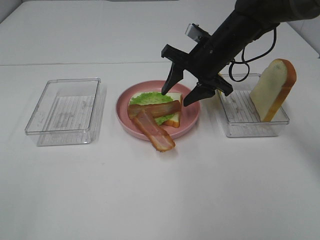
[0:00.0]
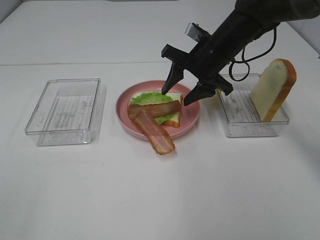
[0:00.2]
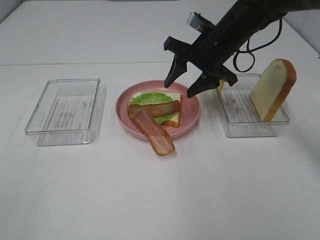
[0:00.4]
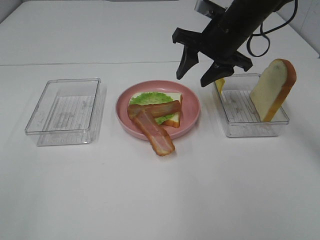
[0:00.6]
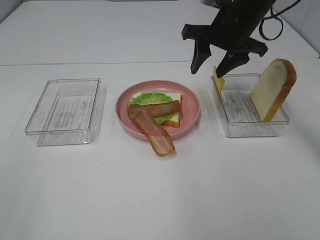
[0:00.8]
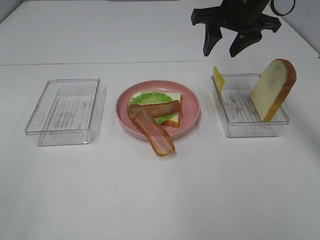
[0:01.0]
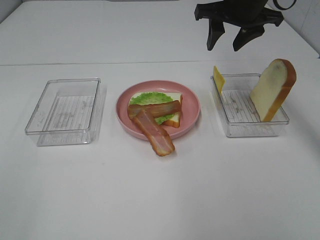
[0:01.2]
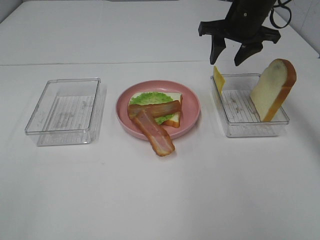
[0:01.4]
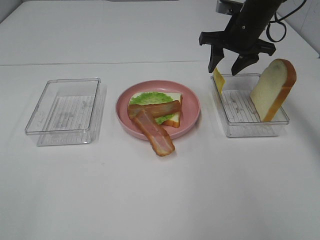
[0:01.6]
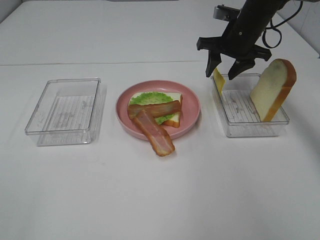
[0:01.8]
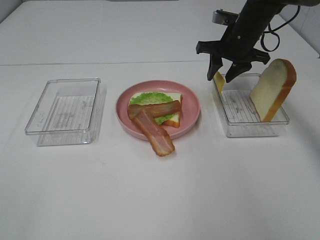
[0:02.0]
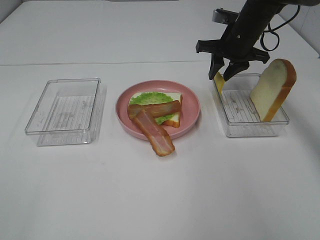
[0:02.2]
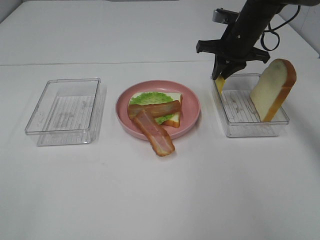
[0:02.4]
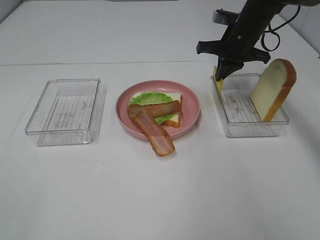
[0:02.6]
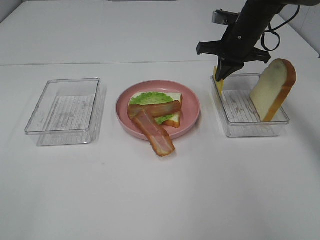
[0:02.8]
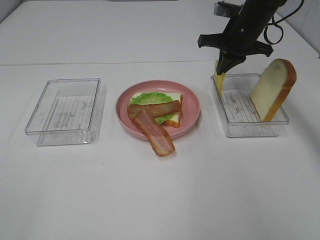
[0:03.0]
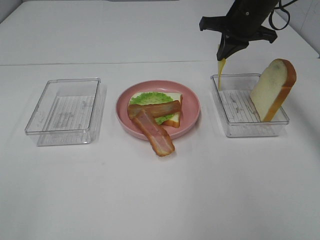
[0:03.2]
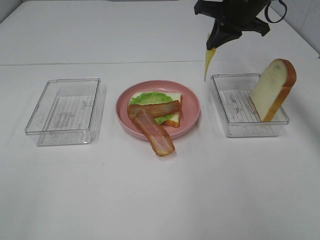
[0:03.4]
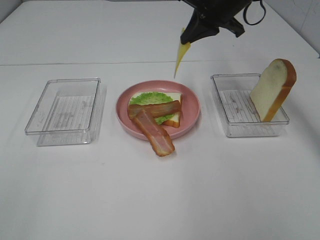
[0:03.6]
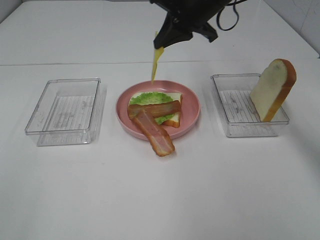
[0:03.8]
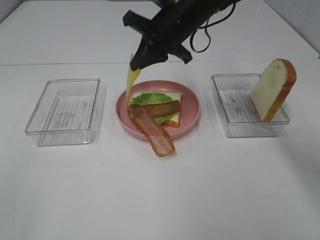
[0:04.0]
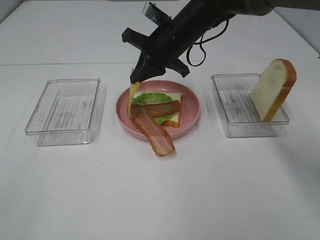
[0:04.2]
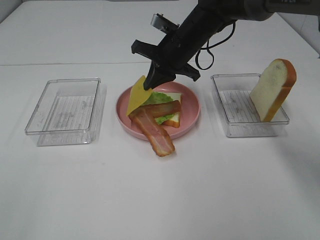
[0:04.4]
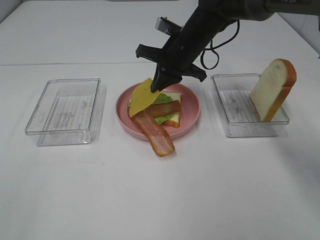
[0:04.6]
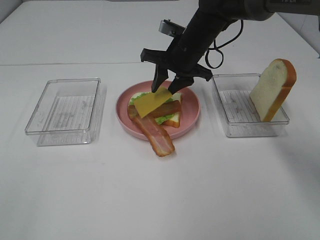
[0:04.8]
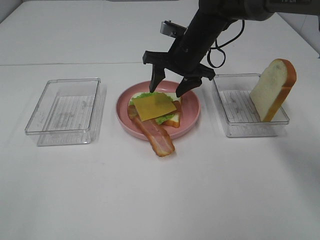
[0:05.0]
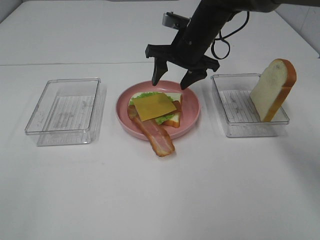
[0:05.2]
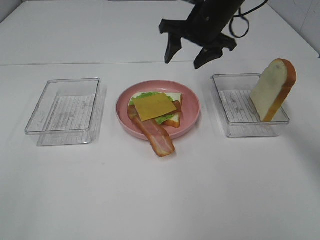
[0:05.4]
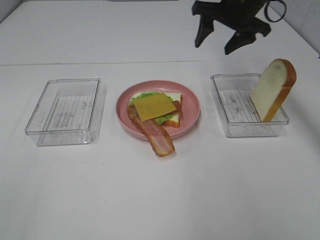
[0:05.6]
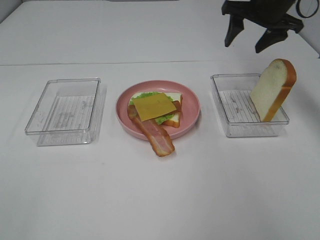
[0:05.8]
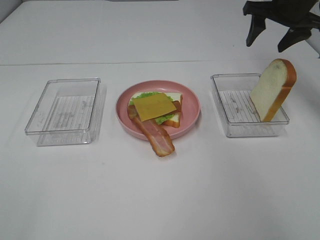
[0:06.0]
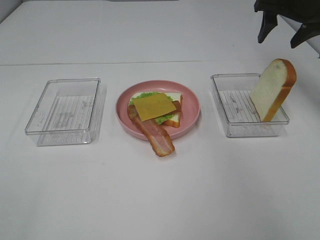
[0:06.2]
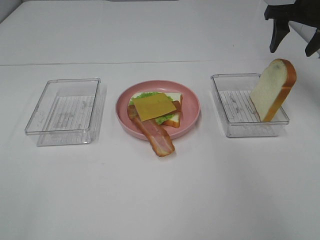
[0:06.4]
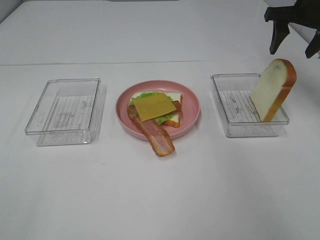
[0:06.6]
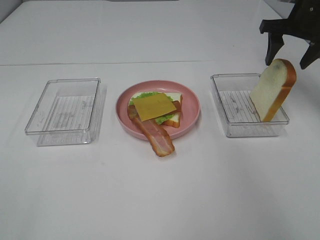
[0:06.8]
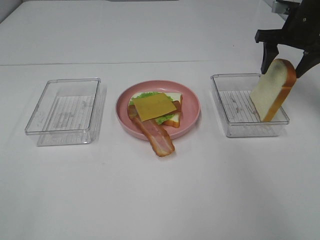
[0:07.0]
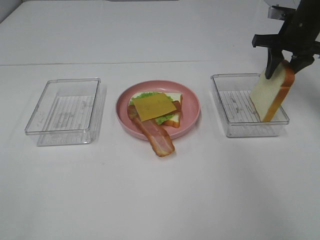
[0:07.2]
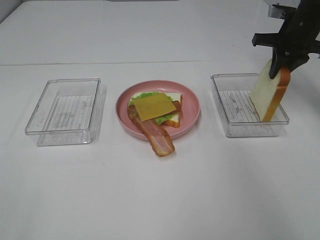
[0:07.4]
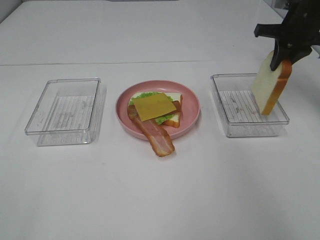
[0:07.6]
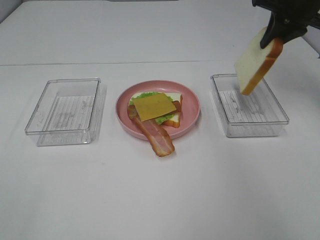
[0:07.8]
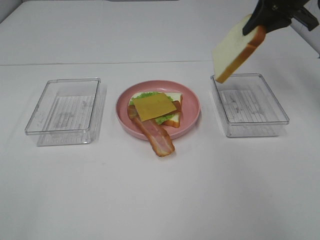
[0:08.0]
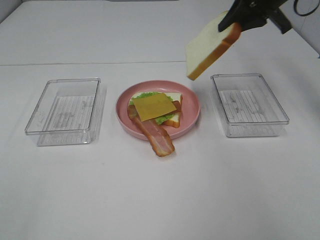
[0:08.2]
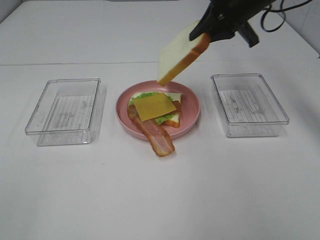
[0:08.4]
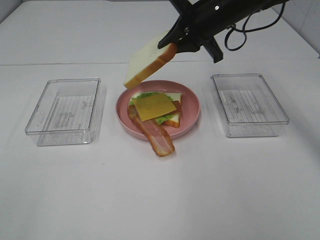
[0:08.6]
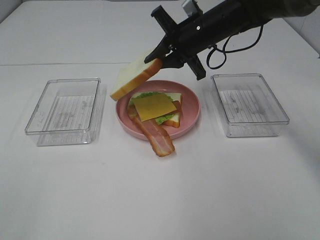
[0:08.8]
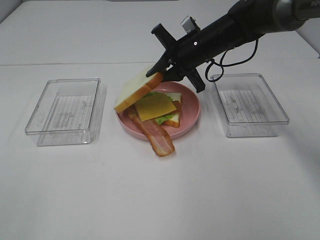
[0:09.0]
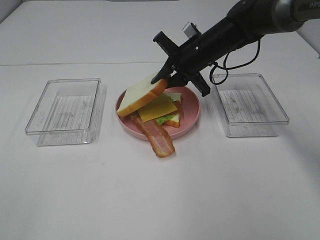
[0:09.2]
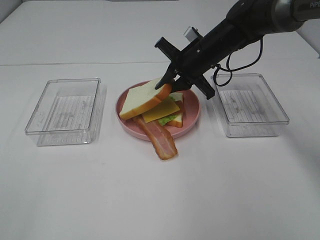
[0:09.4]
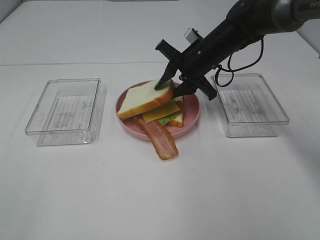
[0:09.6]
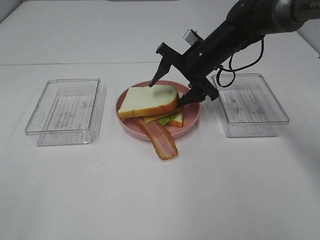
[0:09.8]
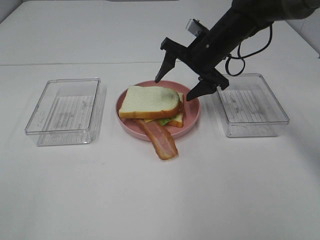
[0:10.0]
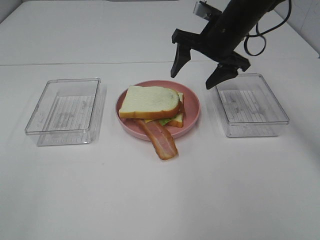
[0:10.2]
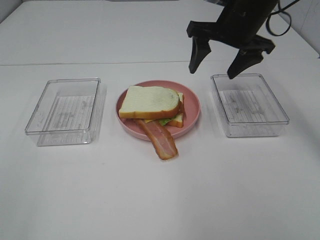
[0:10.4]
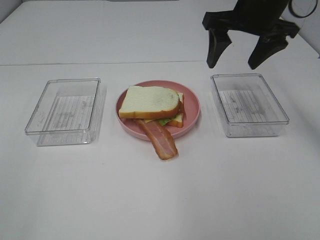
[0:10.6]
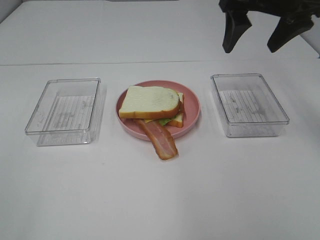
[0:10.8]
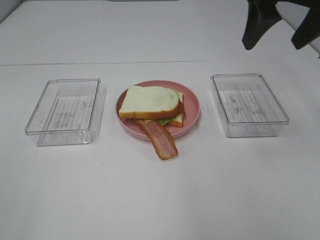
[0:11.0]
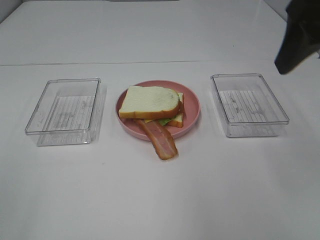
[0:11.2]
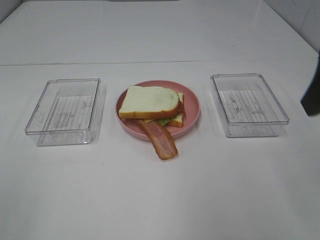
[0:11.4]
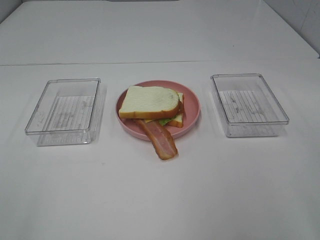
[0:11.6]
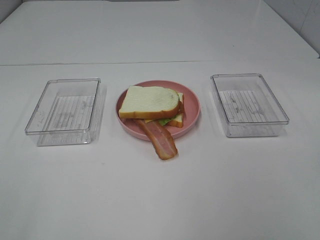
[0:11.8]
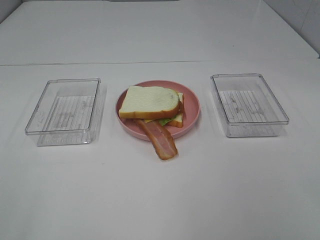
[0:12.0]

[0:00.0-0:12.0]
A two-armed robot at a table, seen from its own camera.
Task of the whole recording: Make sandwiches.
Step, 0:00.4 to 0:02.6: Right hand:grab the cheese slice.
Step, 0:02.8 to 0:05.0: Right hand:place the cheese slice on top of the bacon.
Step, 0:05.2 to 0:07.4: Right hand:grab the bread slice.
Step, 0:07.6 to 0:10.0: Right hand:place the bread slice on the cheese slice.
0:00.0 to 0:01.6: The right gripper heads to the right and forward, covering some 10 cm, and travels upward and back again, roughly 10 cm each way.
0:01.6 to 0:03.0: The right gripper closes.
0:03.0 to 0:04.4: The right gripper goes about 10 cm to the left.
0:04.4 to 0:06.0: The right gripper is displaced to the right and upward by approximately 20 cm, and opens up.
0:06.0 to 0:07.6: The right gripper closes up.
0:07.6 to 0:09.0: The right gripper moves to the left and downward, roughly 20 cm.
0:09.0 to 0:10.4: The right gripper goes approximately 10 cm upward and to the right, and opens its fingers.
0:10.4 to 0:12.0: The right gripper is displaced backward by approximately 35 cm.

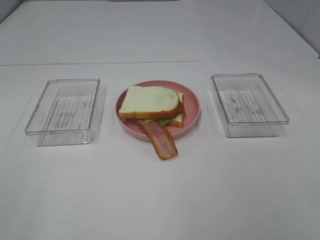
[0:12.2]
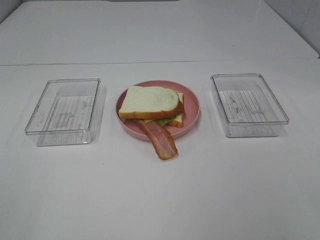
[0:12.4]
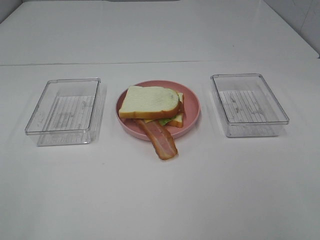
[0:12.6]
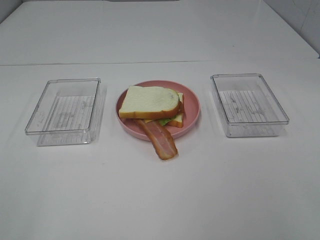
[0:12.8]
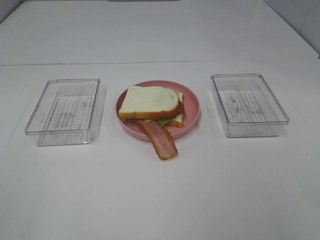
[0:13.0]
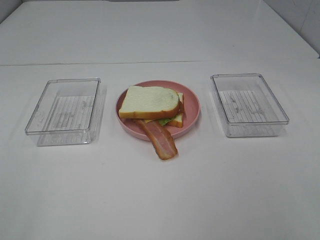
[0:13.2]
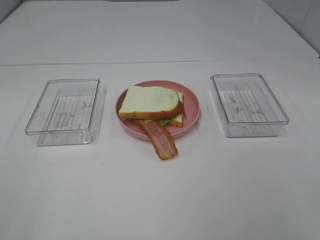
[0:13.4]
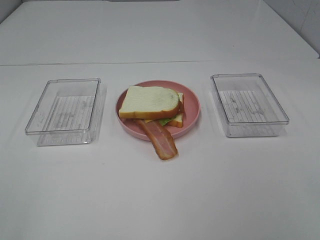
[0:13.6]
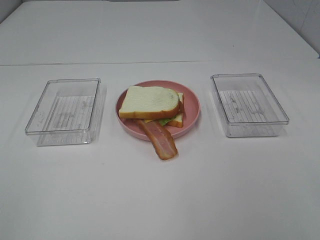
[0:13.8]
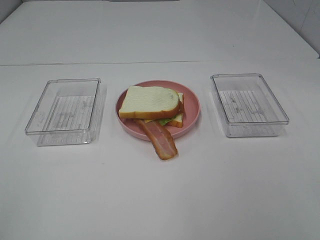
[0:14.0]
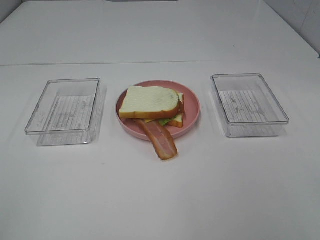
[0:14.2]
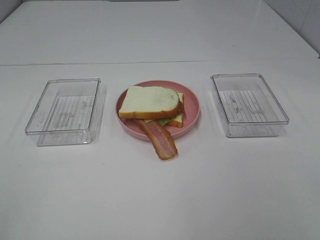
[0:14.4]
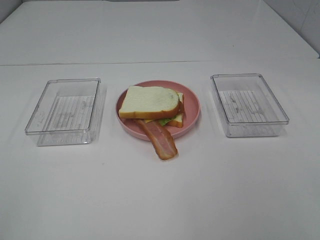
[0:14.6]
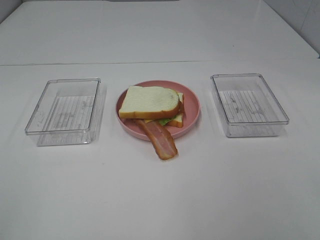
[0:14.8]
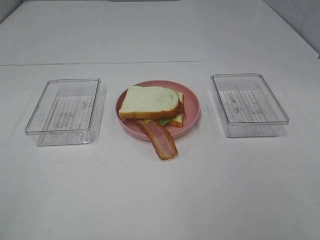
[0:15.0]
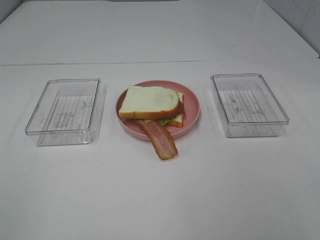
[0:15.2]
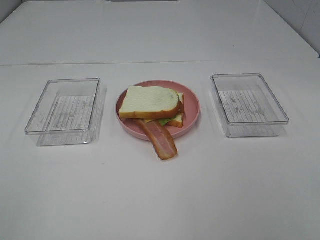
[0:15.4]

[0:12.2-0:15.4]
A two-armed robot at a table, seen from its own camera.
Task of the whole recording: Make sandwiches.
0:13.8 to 0:15.4: The two grippers keep their place.
